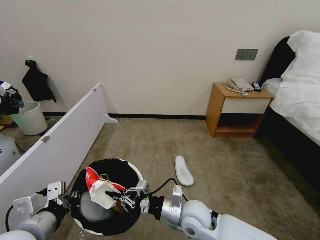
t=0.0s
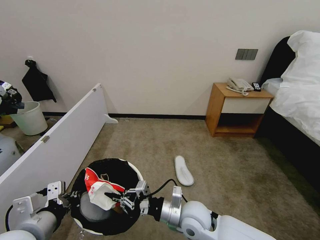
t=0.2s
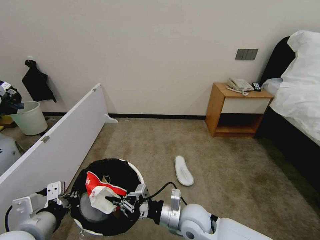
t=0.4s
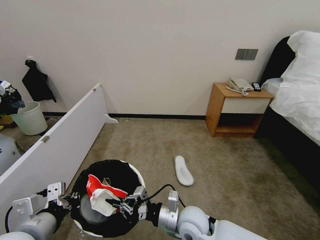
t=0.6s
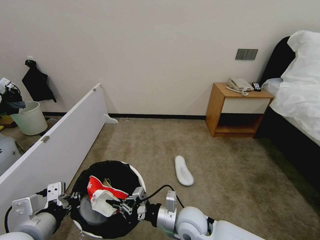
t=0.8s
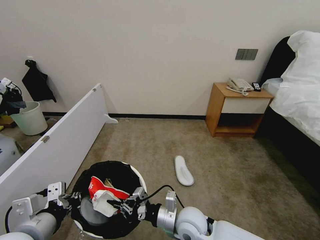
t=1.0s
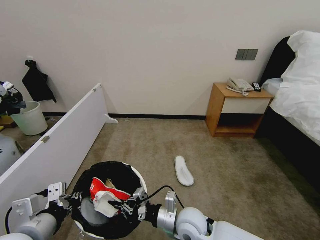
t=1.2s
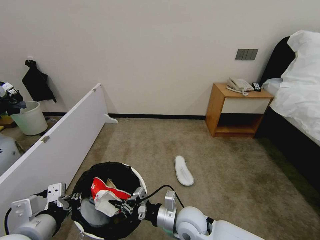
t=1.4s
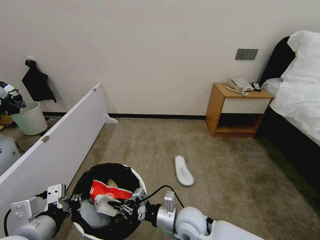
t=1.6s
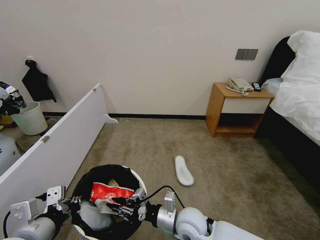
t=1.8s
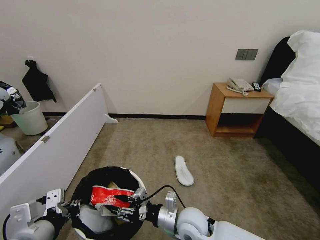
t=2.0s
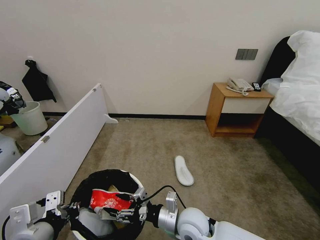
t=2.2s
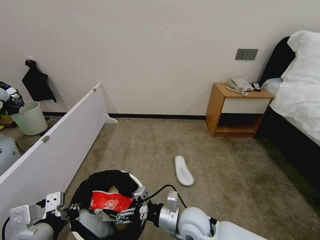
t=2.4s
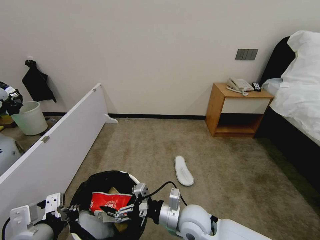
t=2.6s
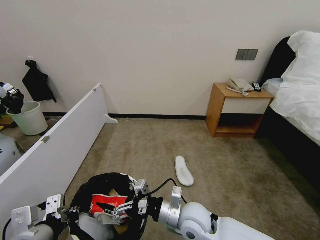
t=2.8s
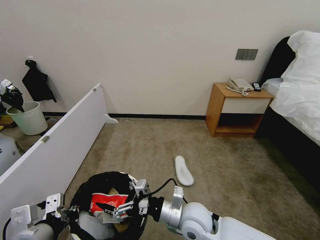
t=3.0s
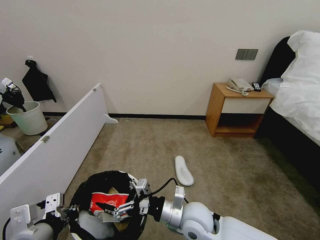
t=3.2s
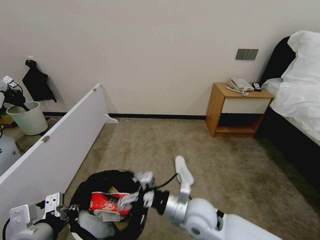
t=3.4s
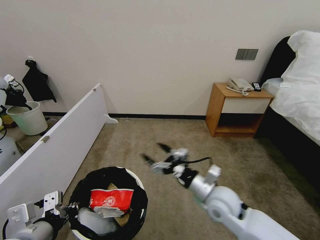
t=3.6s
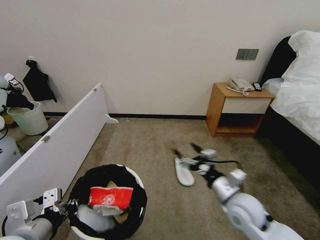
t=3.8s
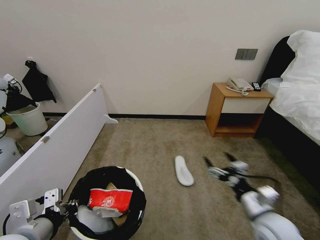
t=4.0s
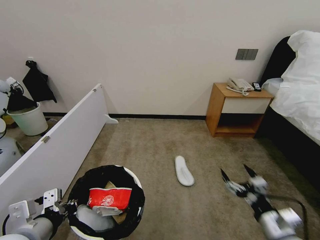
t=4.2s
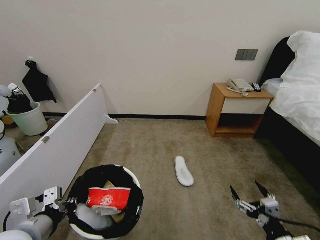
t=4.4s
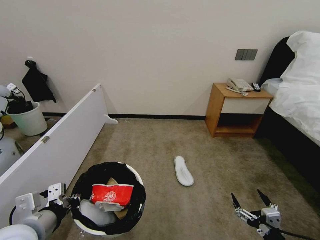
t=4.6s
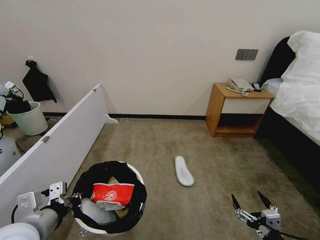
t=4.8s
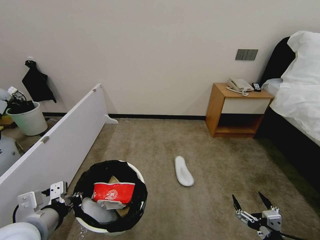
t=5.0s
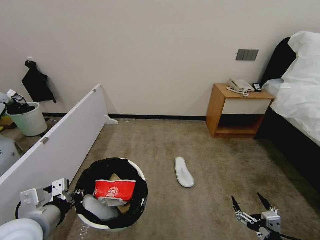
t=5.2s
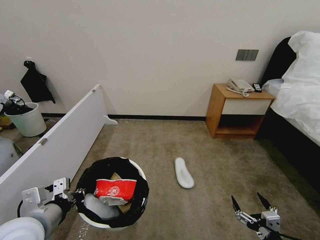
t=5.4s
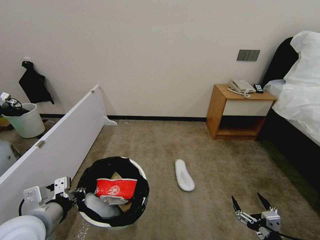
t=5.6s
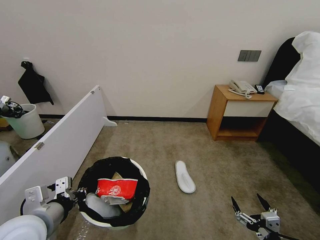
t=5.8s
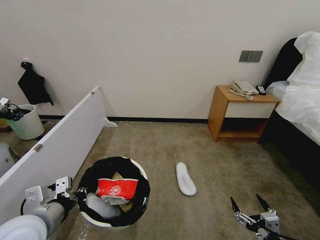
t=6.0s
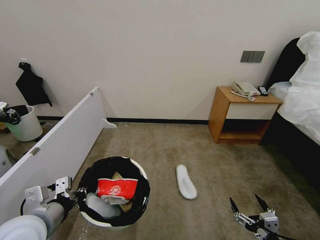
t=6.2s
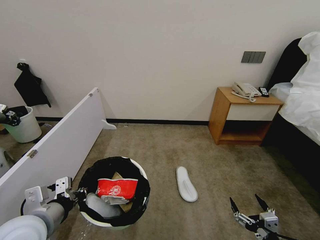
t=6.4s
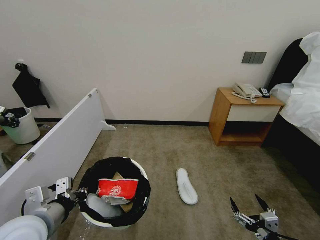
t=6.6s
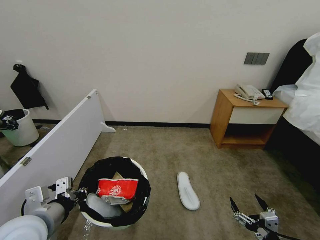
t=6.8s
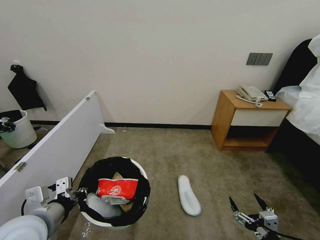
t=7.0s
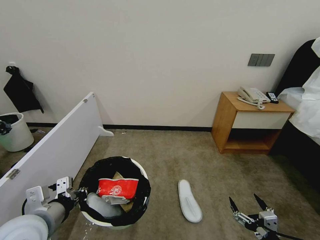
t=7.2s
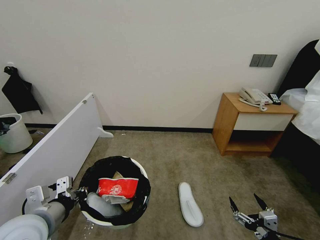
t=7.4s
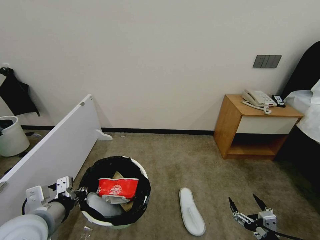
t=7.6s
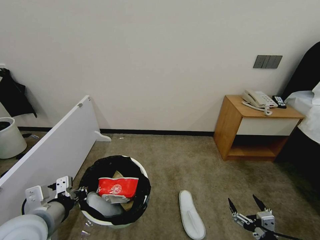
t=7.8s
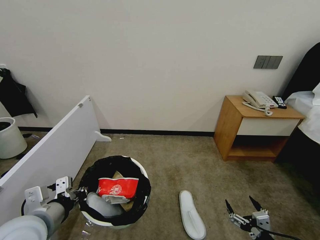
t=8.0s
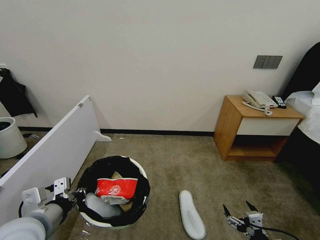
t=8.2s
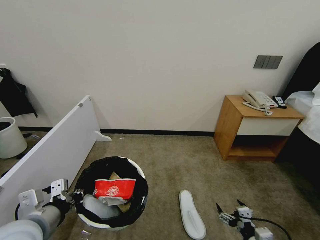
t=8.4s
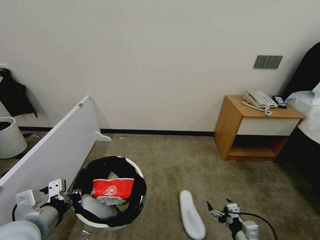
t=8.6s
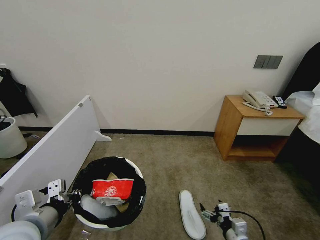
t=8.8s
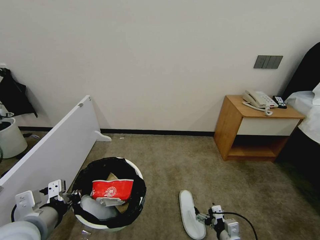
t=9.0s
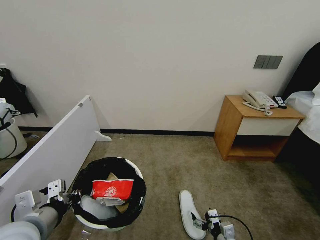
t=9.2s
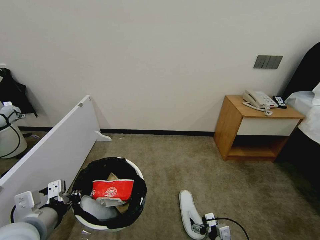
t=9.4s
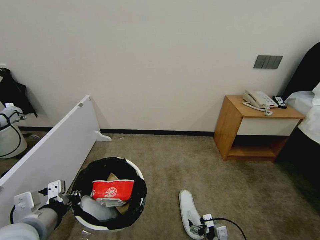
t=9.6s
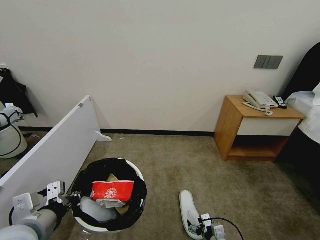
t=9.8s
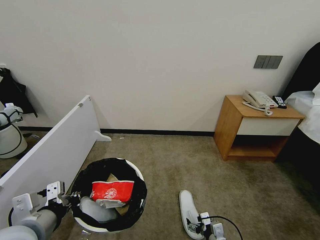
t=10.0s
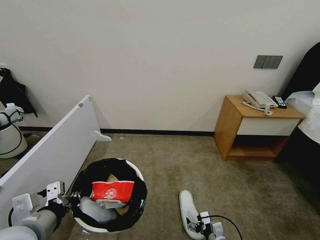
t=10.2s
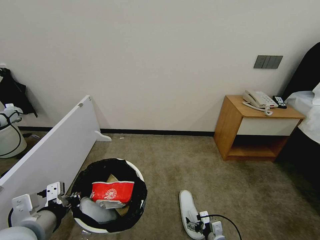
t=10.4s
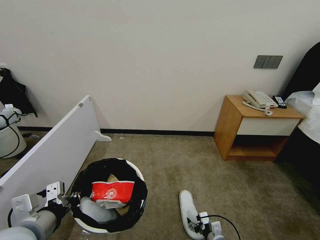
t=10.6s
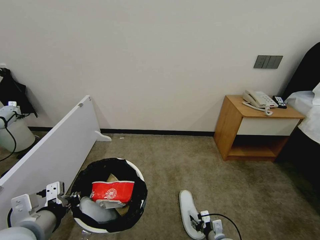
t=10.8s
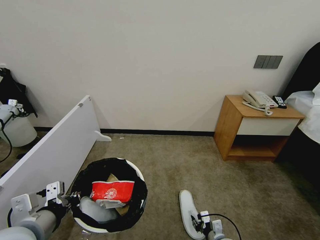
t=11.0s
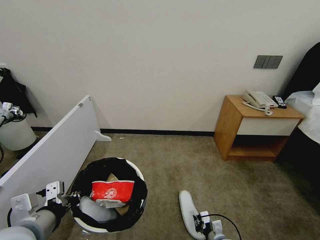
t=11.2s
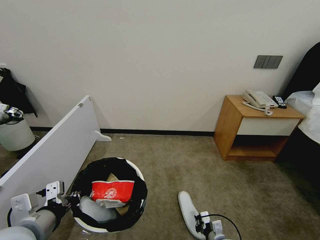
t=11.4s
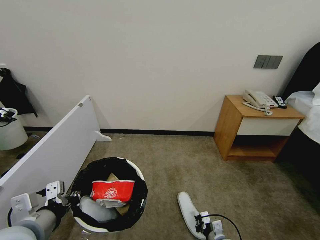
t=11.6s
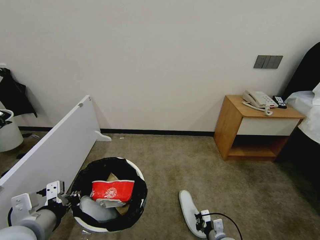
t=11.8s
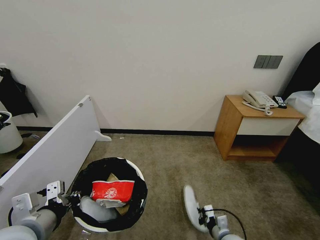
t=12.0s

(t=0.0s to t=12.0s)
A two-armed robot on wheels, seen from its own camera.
Task of the whole recording: Pick up the trash bin, then pick up the garbage from the floor and place it into the trash bin.
t=0.0s - t=1.6s: The grippers move only a little.
t=1.6s - t=3.0s: The right gripper opens.
t=3.0s - t=4.4s: The right gripper is displaced to the right and backward by about 30 cm.
t=4.4s - t=6.0s: The grippers make only small movements.
t=7.6s - t=9.0s: The right gripper heads forward, downward and to the left, covering about 15 cm.
t=9.0s - t=10.4s: The right gripper moves downward, approximately 5 cm.
t=10.4s - t=12.0s: The right gripper closes up.

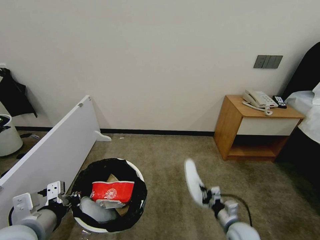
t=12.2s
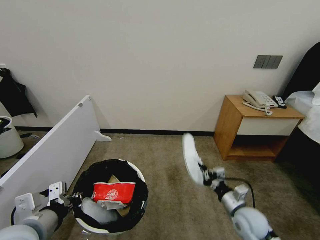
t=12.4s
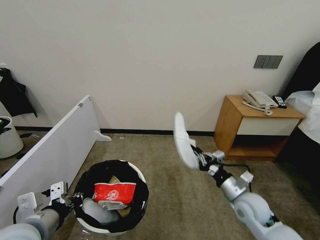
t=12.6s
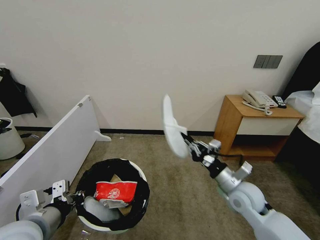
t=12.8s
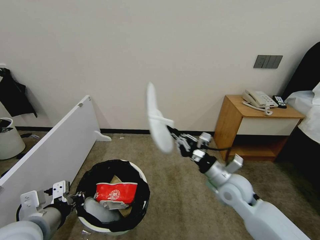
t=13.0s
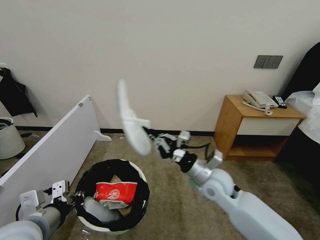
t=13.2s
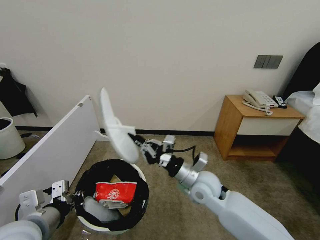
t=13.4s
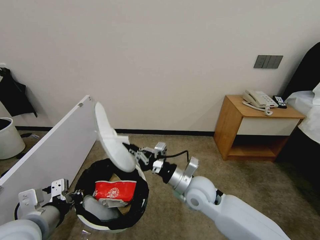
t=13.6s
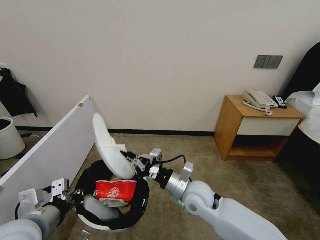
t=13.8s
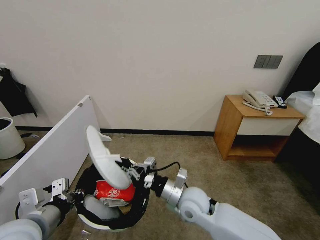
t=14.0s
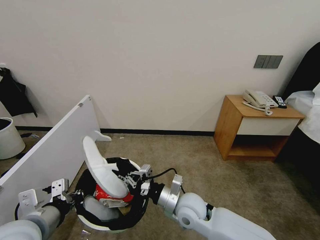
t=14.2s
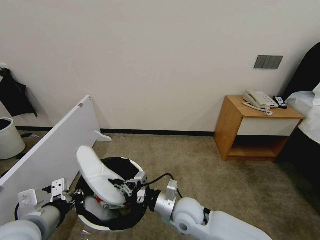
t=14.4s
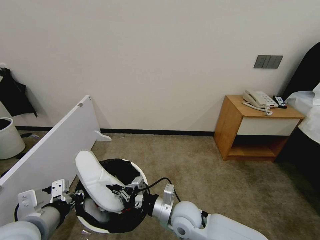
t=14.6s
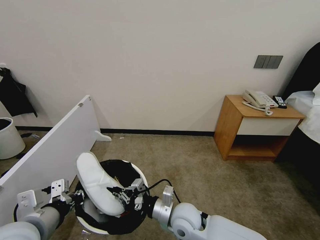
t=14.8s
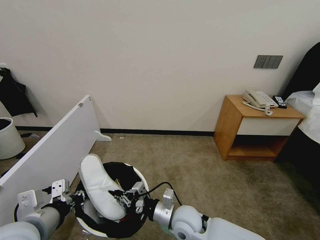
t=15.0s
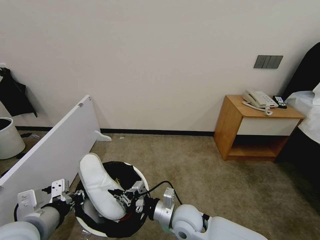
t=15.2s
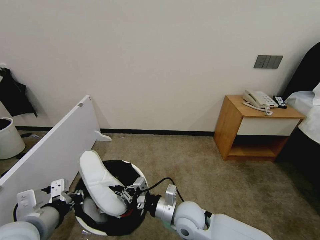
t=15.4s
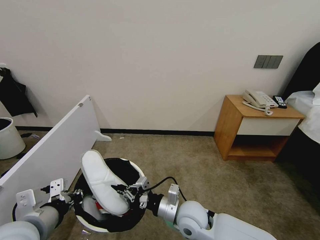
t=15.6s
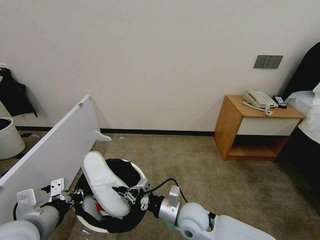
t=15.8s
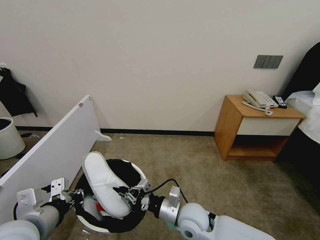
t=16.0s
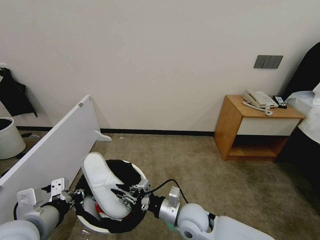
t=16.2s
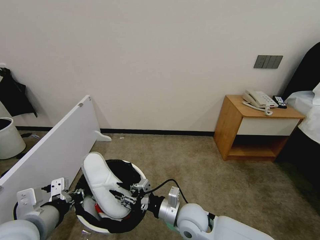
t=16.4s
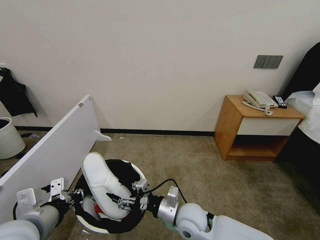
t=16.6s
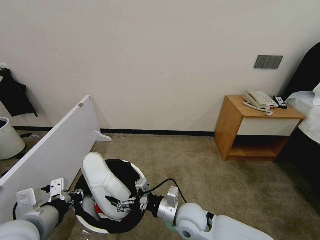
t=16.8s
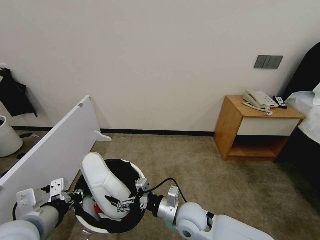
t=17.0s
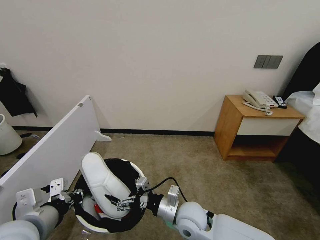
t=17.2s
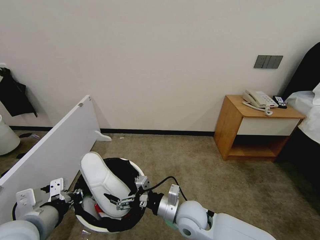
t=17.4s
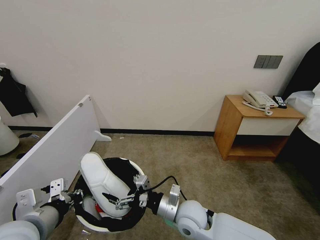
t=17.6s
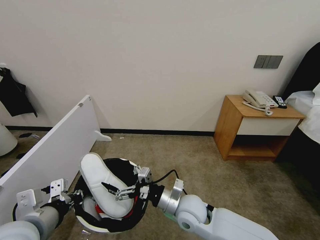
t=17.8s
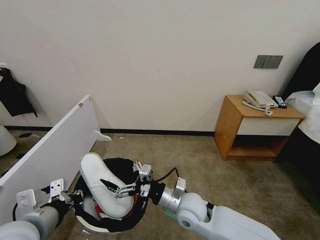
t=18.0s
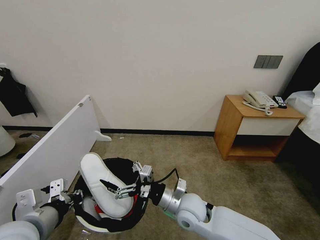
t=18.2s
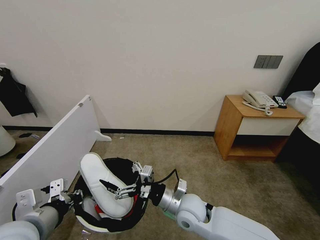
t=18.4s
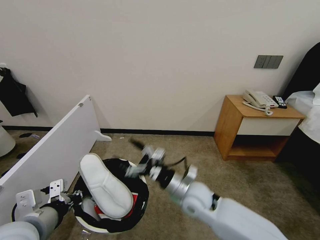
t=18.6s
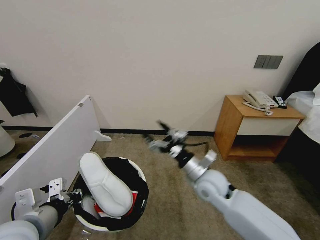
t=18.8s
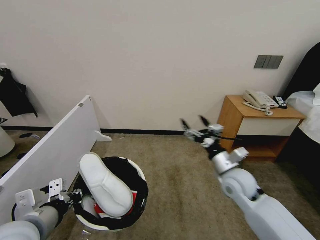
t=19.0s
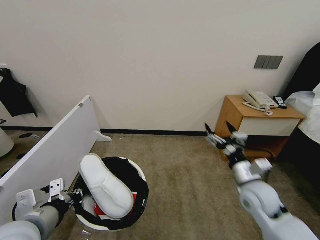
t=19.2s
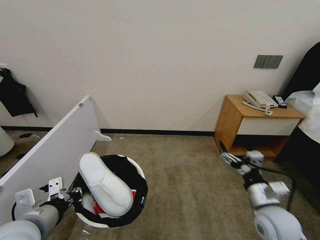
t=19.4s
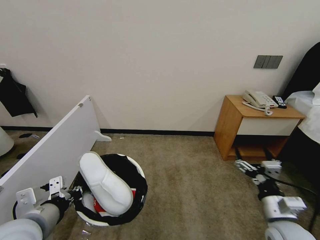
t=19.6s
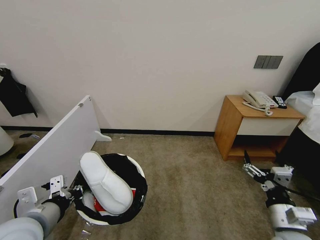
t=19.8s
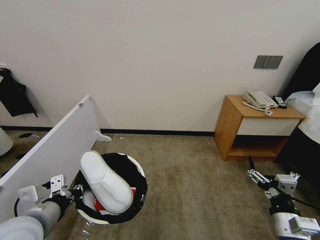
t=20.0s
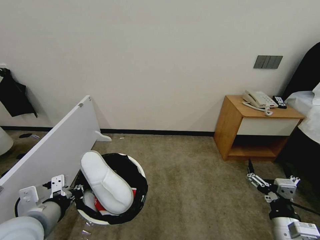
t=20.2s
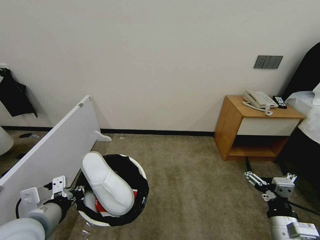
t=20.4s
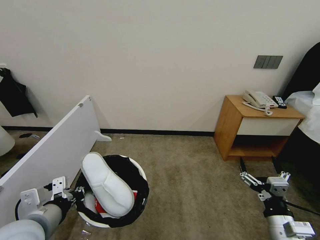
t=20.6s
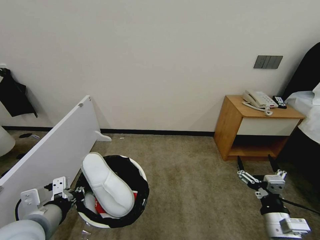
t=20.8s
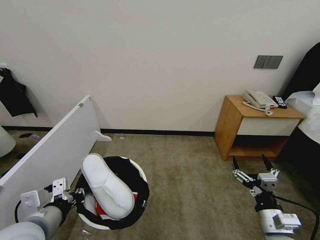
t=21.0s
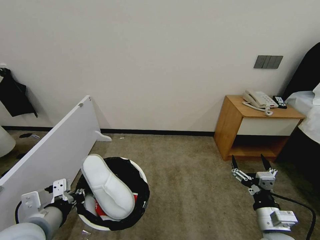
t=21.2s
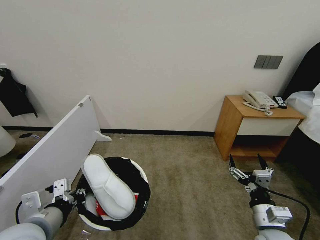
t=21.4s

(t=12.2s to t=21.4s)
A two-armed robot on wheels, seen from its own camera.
Task of the whole recording: Pick up the trash bin, then pick up the garbage from the floor and place it into the trash bin.
t=12.2s - t=13.8s: The right gripper travels upward and to the left by about 25 cm.
t=13.8s - t=15.2s: The right gripper shifts some 5 cm downward.
t=15.2s - t=16.8s: The right gripper opens its fingers.
t=18.4s - t=19.8s: The right gripper goes some 25 cm to the right and backward.
t=19.8s - t=21.4s: The grippers make only small movements.
